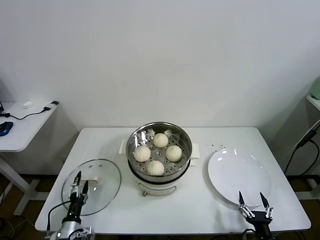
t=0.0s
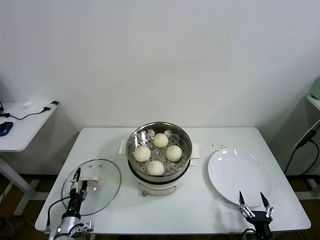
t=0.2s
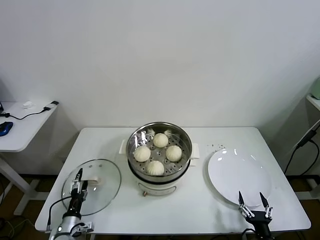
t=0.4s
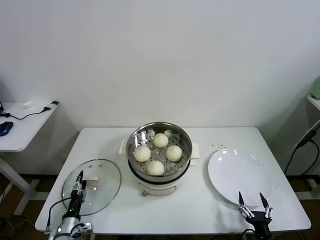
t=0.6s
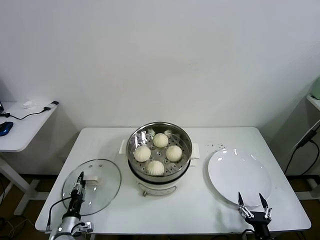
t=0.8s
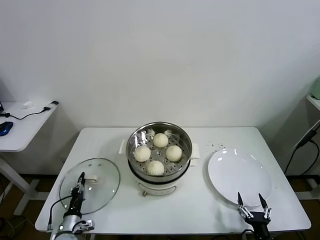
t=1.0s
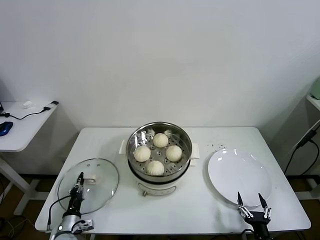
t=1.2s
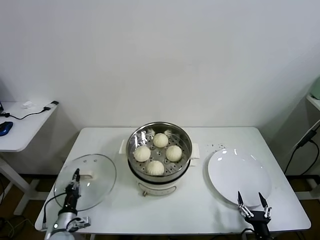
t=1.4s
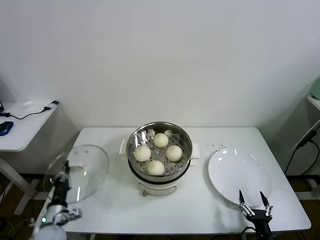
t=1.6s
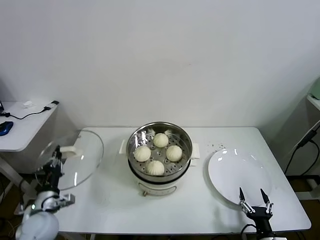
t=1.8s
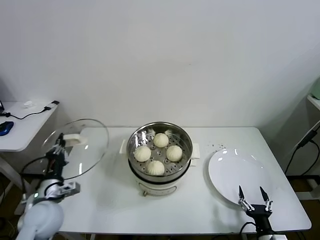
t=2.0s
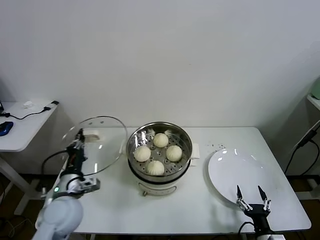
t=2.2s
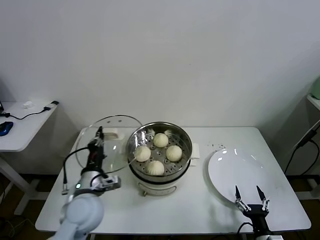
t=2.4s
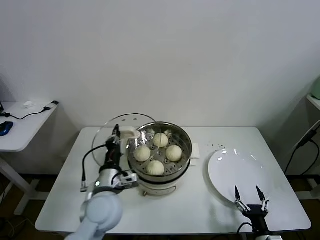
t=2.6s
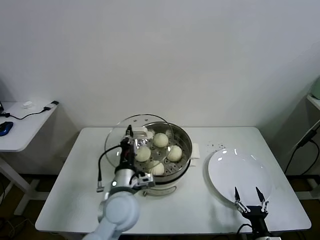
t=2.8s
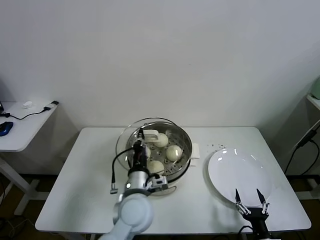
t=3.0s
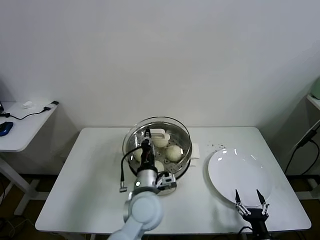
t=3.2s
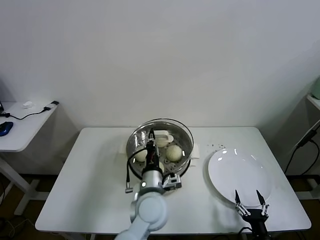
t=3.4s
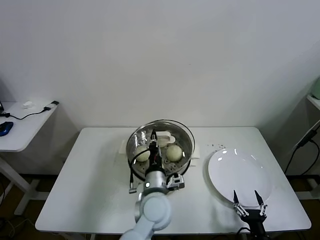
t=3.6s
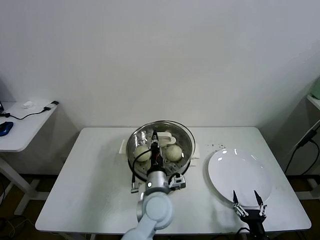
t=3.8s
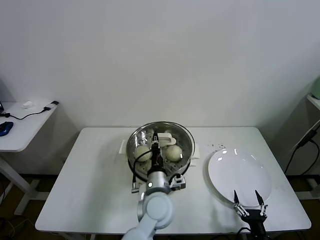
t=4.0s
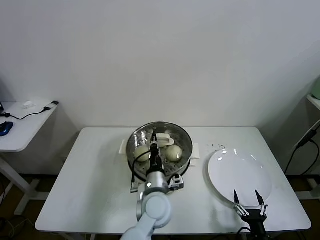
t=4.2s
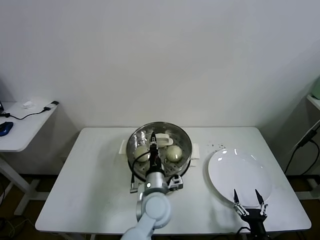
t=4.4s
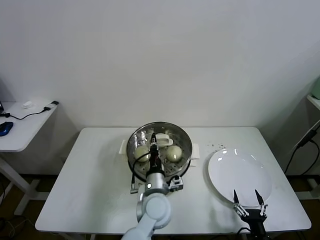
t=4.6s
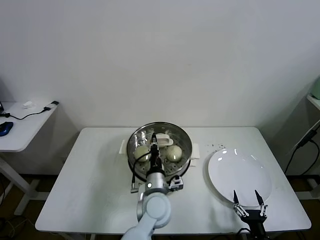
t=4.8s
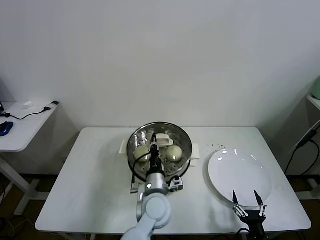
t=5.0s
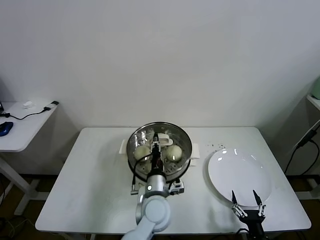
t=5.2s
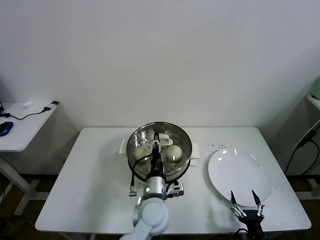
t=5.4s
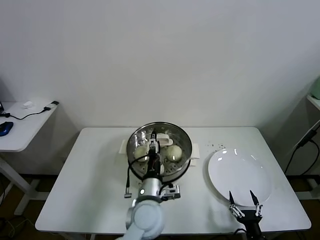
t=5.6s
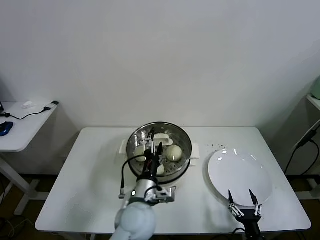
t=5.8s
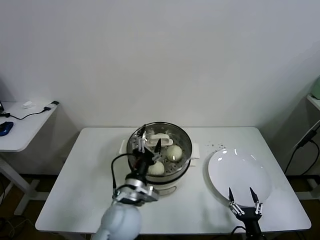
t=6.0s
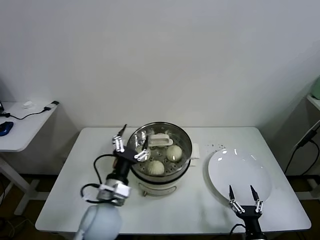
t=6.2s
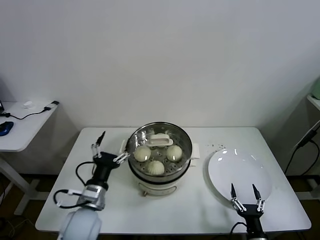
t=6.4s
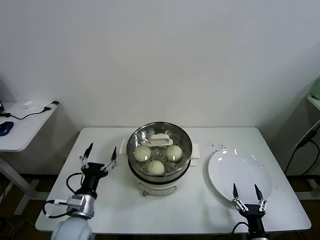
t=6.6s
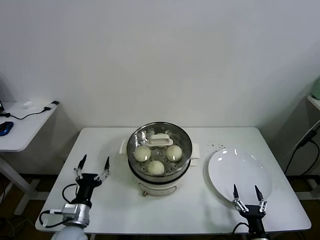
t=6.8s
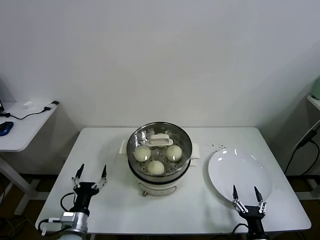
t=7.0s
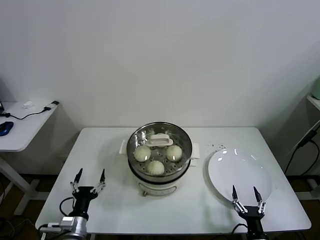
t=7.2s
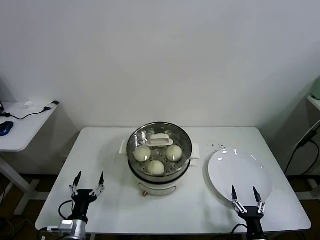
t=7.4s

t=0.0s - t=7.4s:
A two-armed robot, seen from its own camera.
Task of the whole recording: take steamed baozi put them in steamer.
Step, t=1.4s - t=5.2s: Place the pot lid on the steamer with left gripper.
t=0.0s - t=1.4s: The left gripper closes.
t=1.4s - t=3.0s: The left gripper is displaced to the right and upward by approximately 35 cm.
t=3.0s - t=4.4s: The left gripper travels to the right by roughly 5 cm.
t=4.4s - t=6.0s: The left gripper is displaced to the left by roughly 5 cm, and opens up.
t=6.0s - t=7.4s: The left gripper travels to the left and downward by roughly 25 cm.
